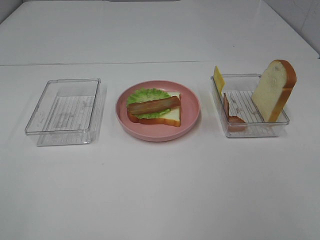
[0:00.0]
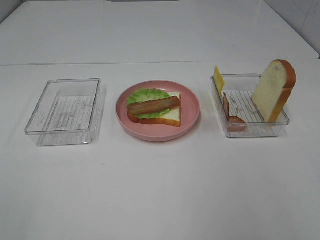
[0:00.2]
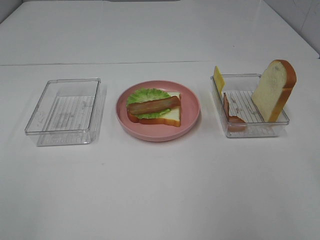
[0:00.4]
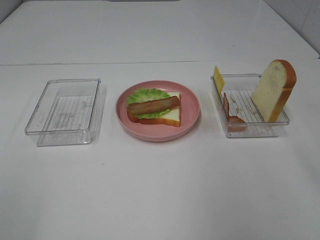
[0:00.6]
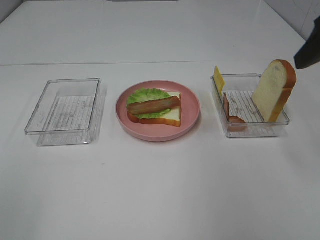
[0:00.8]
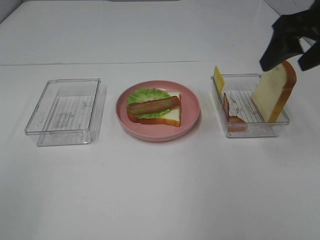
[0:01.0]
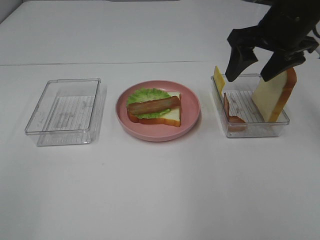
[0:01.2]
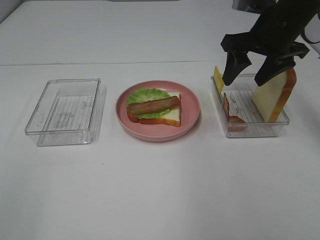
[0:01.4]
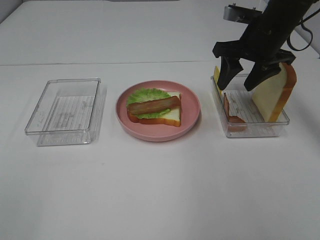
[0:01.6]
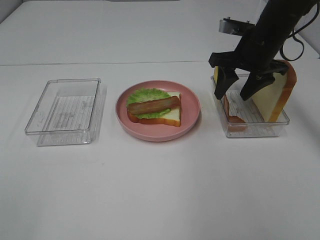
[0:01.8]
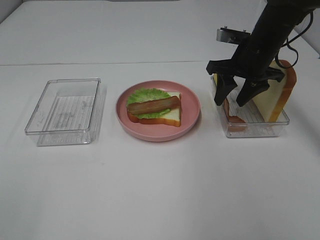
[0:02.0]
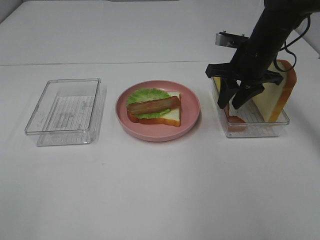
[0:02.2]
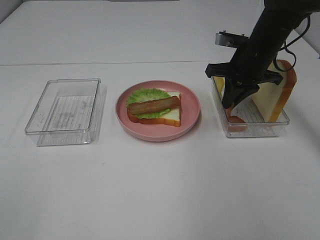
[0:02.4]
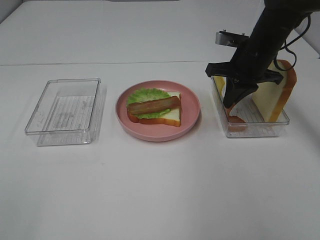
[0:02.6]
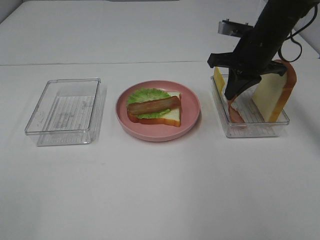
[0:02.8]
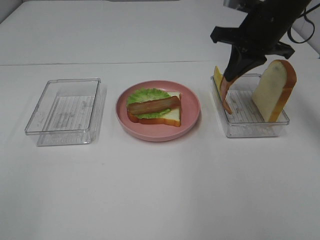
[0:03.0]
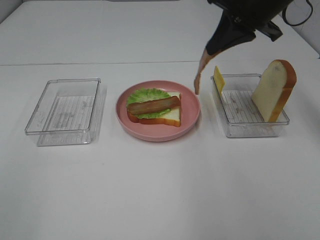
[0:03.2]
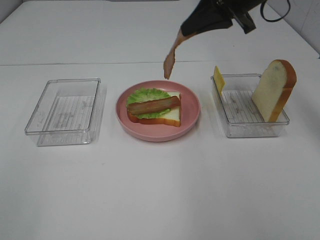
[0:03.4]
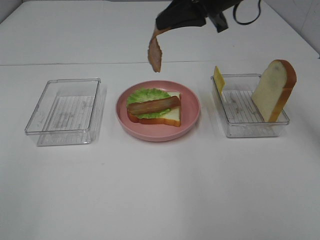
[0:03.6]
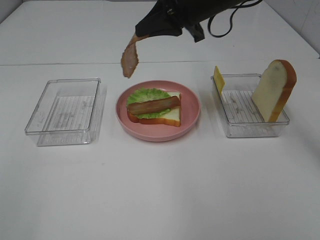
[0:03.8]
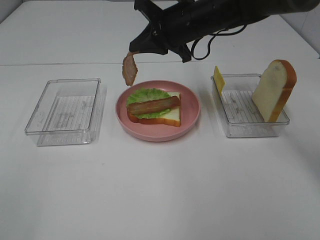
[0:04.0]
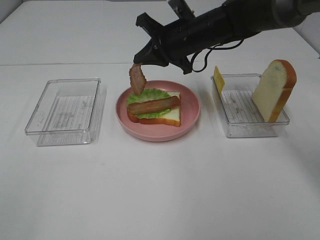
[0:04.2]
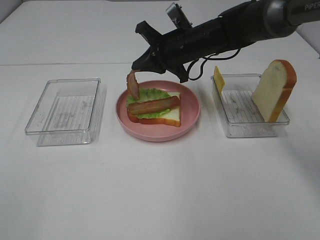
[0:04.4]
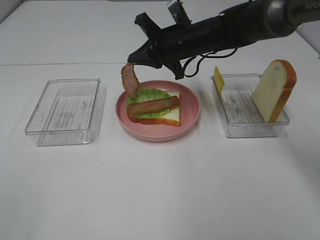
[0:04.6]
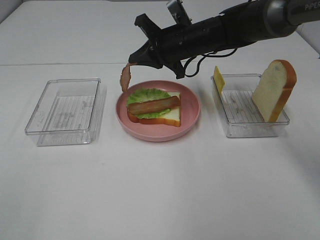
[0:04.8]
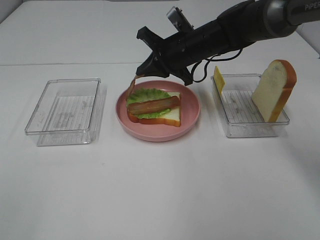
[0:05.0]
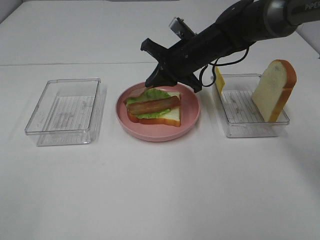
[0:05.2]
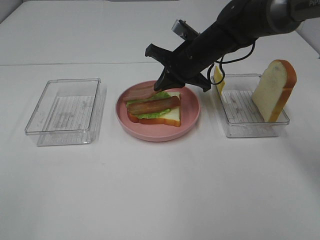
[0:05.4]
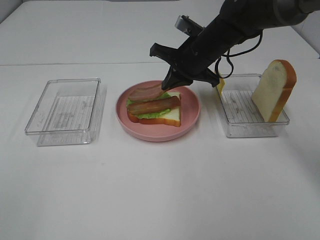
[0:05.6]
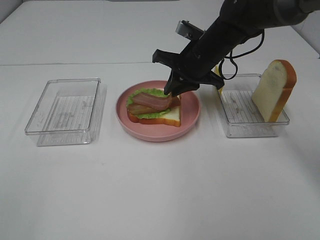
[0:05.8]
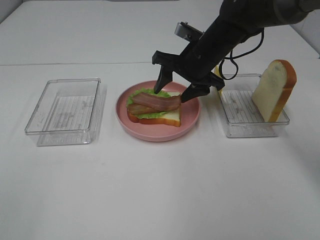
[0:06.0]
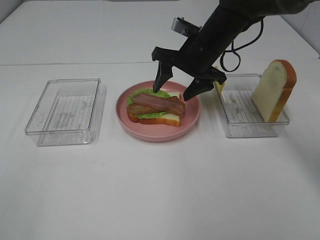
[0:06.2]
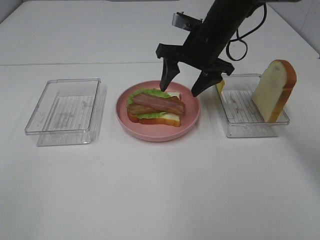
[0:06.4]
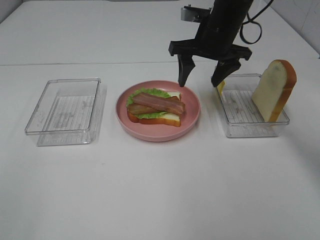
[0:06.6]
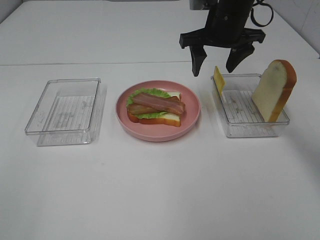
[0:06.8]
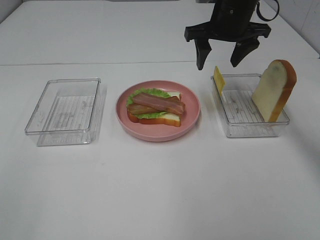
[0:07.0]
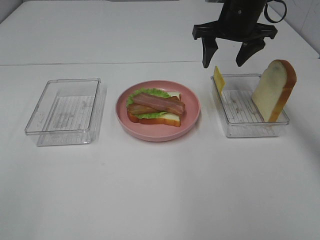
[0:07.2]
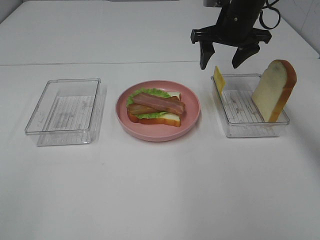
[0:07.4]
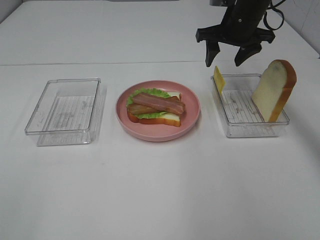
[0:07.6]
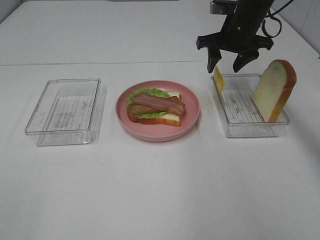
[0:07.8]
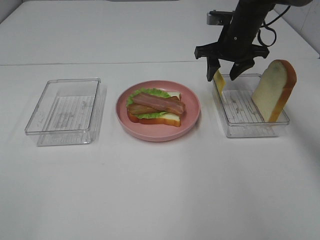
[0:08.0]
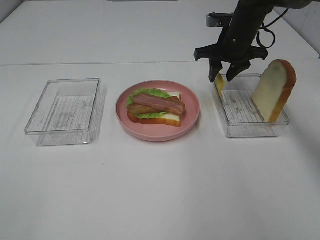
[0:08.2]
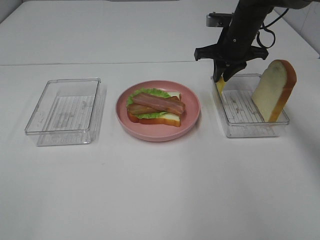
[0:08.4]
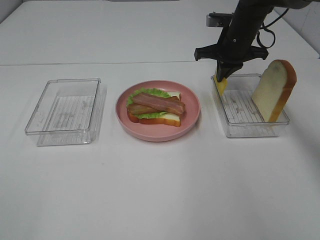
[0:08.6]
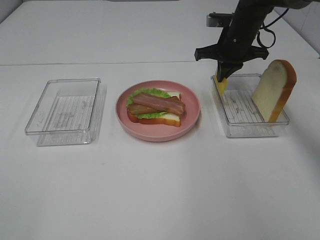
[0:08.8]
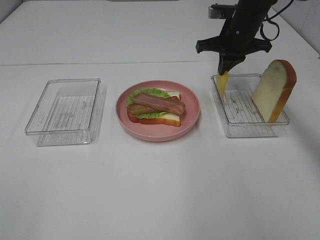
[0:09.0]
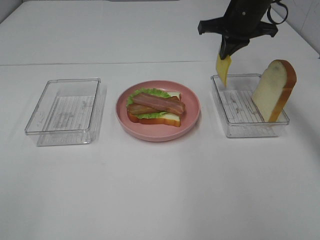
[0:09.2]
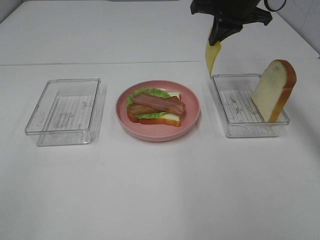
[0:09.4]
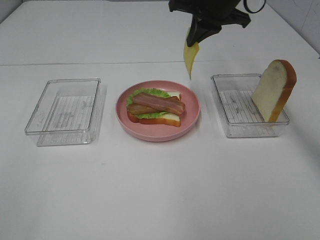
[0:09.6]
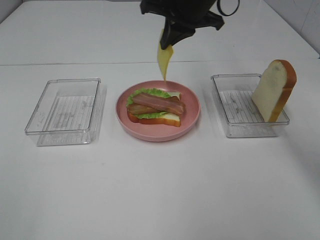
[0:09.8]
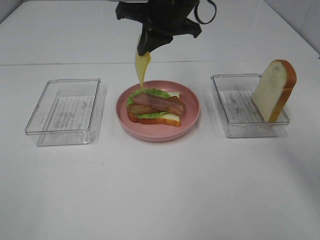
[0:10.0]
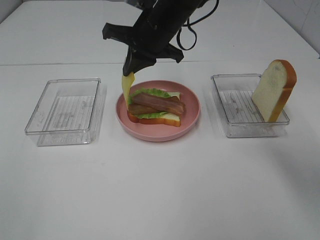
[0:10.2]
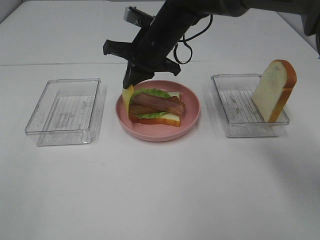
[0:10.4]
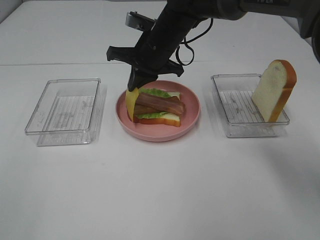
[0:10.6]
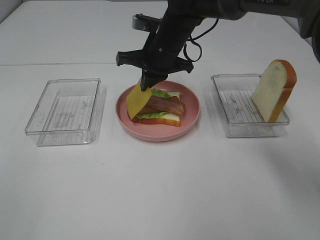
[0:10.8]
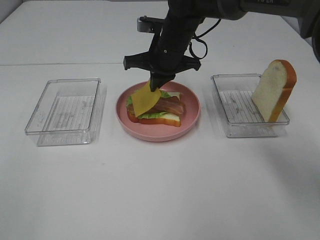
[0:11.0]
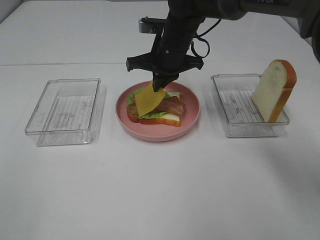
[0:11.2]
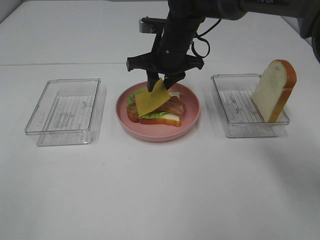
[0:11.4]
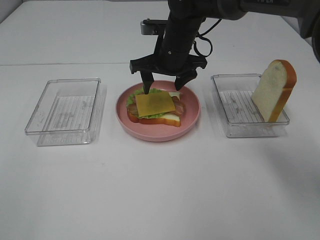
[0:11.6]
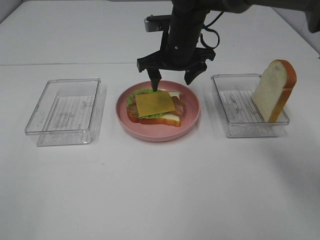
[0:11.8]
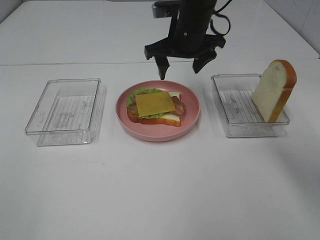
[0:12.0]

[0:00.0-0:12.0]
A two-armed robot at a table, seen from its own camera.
Task of the whole recording: Make sandwiches.
Step, 0:00.0 to 0:02.4: Right hand:grab the bacon.
Step, 0:02.6 to 0:06.2: Right hand:place bacon on bacon.
Step, 0:06.4 to 0:08.8: Right hand:grab the cheese slice.
Step, 0:09.0 to 0:11.6: Right hand:place the cheese slice on top of the bacon.
0:00.0 to 0:01.6: The right gripper is displaced forward by some 40 cm.
0:01.6 to 0:03.0: The right gripper closes up.
0:03.0 to 0:04.4: The right gripper goes about 15 cm to the left and downward.
0:04.4 to 0:06.0: The right gripper opens up.
0:06.0 to 0:07.6: The right gripper moves to the right, forward and upward, about 10 cm.
0:07.6 to 0:09.0: The right gripper closes.
0:09.0 to 0:10.4: The right gripper travels to the left by some 15 cm.
0:10.4 to 0:12.0: The right gripper is displaced to the right by about 5 cm, and opens.

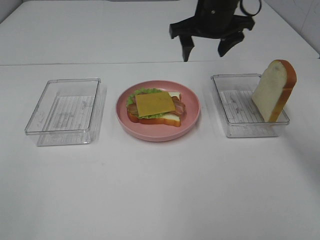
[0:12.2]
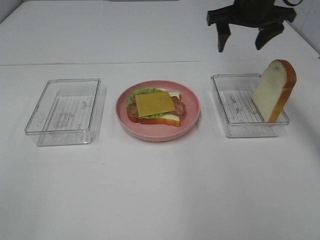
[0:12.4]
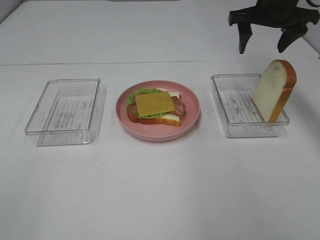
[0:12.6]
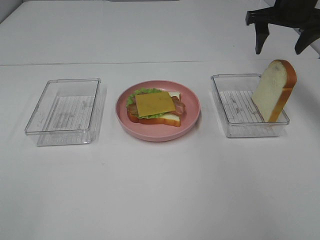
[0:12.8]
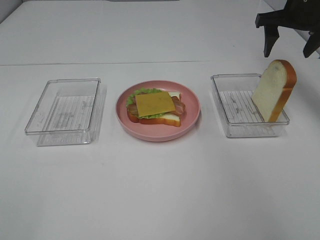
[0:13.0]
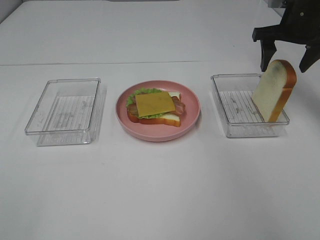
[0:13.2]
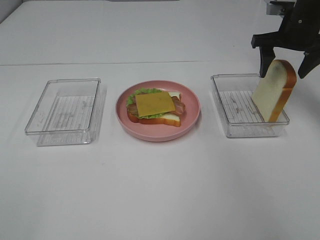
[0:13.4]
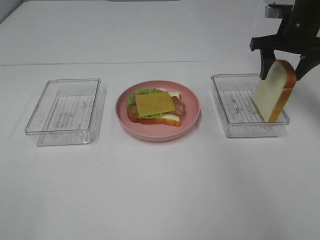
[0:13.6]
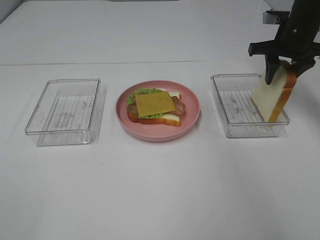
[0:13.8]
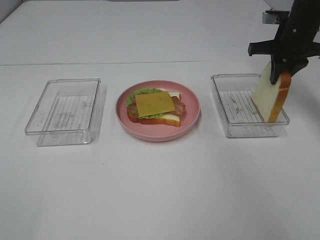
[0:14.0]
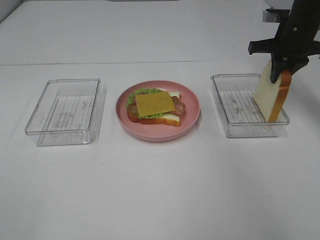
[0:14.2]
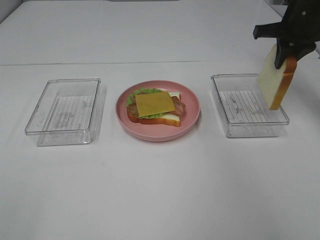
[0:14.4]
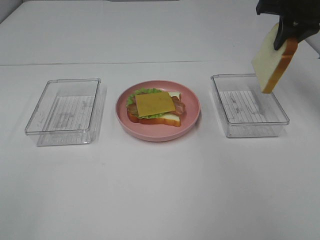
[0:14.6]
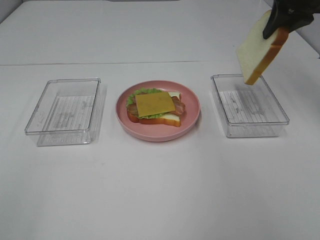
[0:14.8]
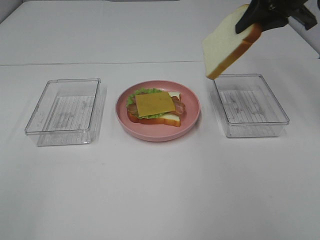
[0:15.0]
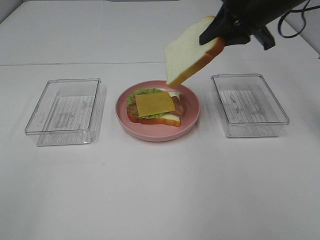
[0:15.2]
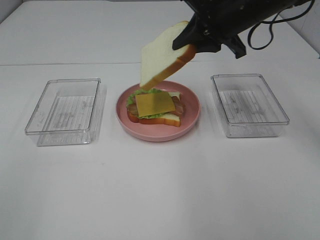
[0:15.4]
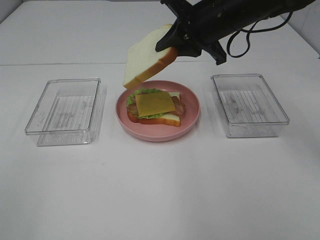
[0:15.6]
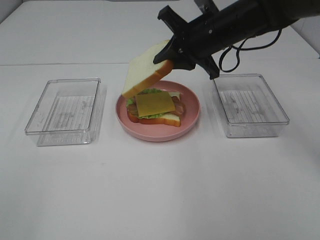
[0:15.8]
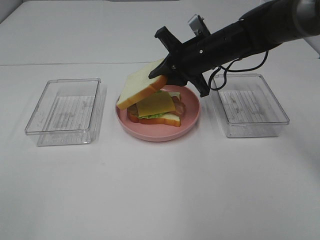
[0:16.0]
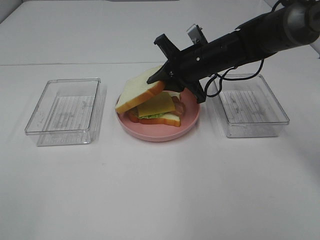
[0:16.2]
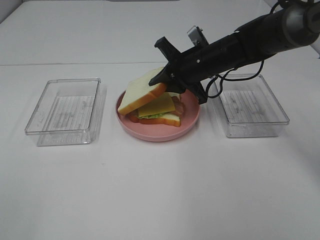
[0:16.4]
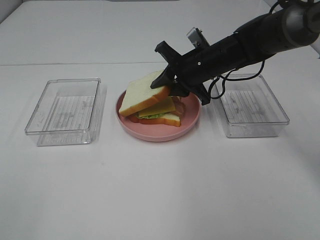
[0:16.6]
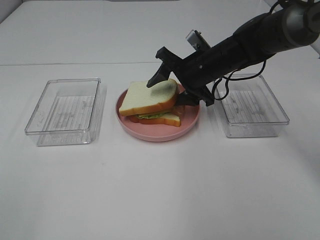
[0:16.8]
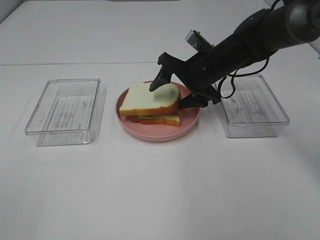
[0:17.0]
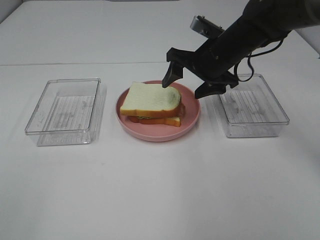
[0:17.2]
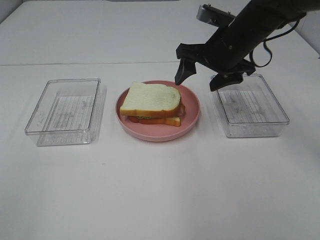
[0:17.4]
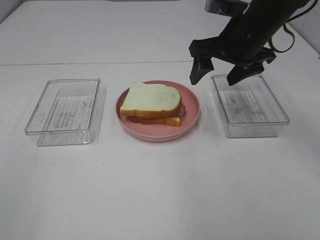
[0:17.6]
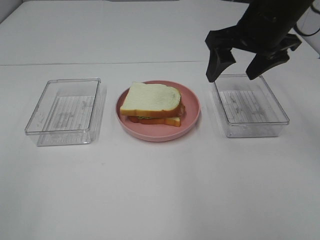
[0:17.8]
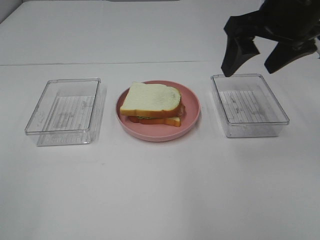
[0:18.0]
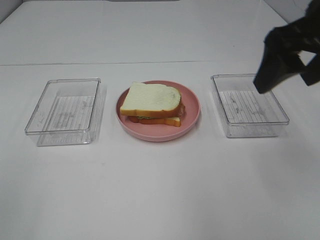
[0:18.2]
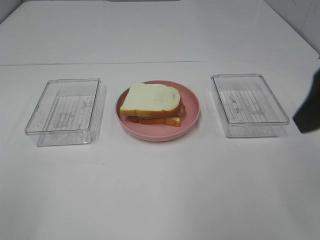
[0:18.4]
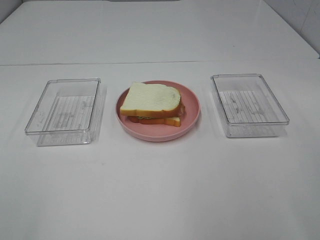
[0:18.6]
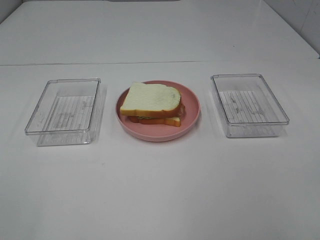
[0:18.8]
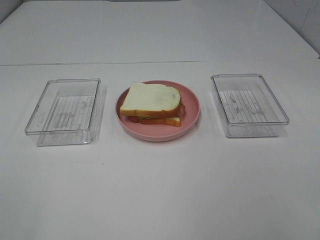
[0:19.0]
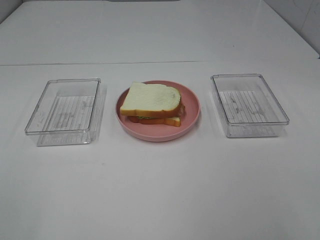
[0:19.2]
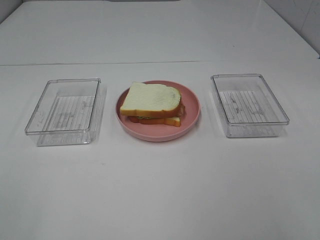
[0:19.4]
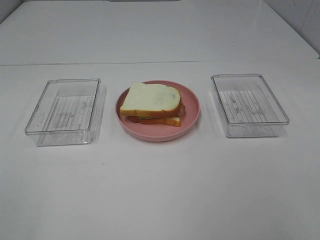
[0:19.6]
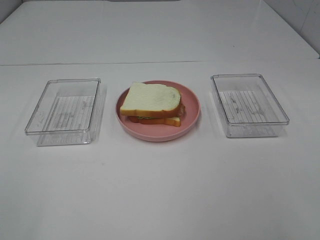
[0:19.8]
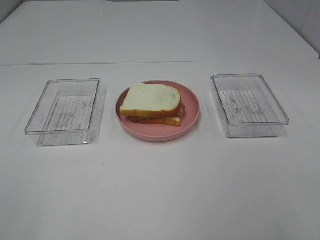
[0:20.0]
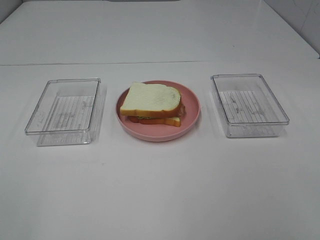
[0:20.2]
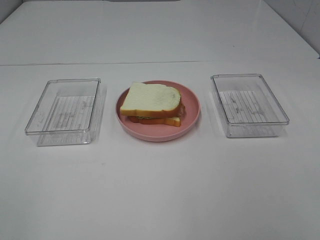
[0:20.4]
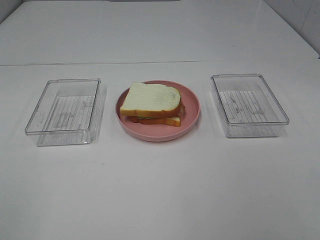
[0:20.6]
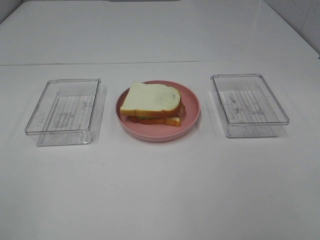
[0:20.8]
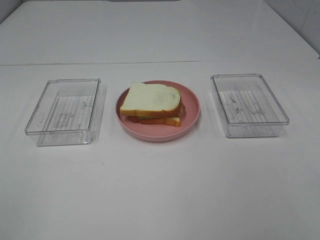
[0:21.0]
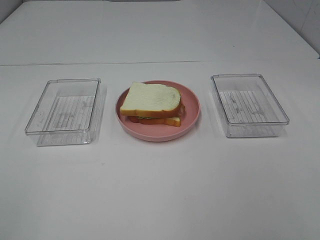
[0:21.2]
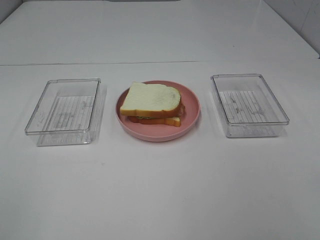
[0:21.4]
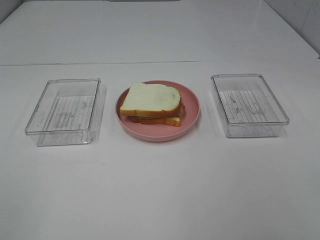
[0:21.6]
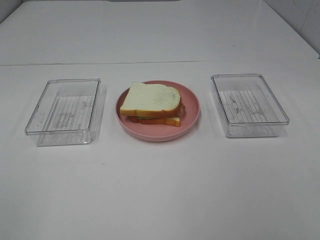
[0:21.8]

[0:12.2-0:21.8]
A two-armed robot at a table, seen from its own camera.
Task of the whole recording: Make sandwiches.
Step, 0:12.2 to 0:14.2: Right hand:grab the bread slice.
Step, 0:14.4 to 0:17.2: Right hand:place the bread slice on the cheese slice.
0:12.2 to 0:13.8: The right gripper is displaced to the right by some 15 cm, and closes.
0:13.8 to 0:15.4: The right gripper goes approximately 15 cm to the left, backward and upward.
0:15.4 to 0:17.0: The right gripper heads downward, covering approximately 10 cm, and opens.
0:17.0 to 0:18.6: The right gripper shifts roughly 35 cm backward, upward and to the right.
